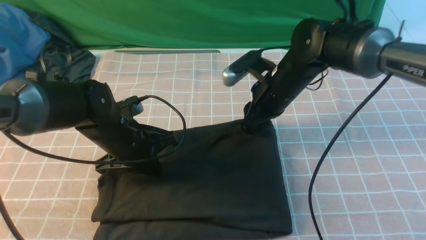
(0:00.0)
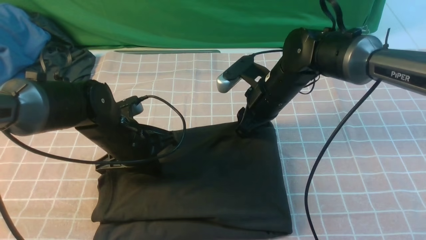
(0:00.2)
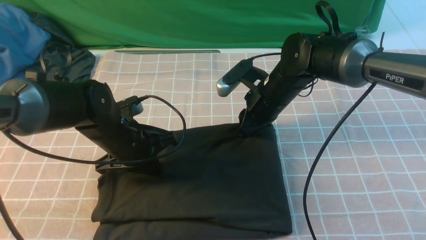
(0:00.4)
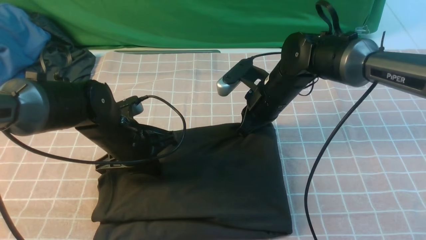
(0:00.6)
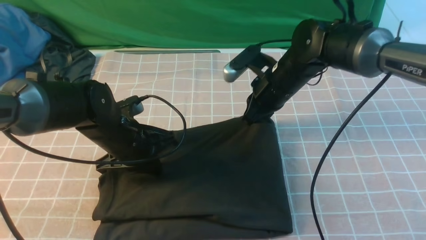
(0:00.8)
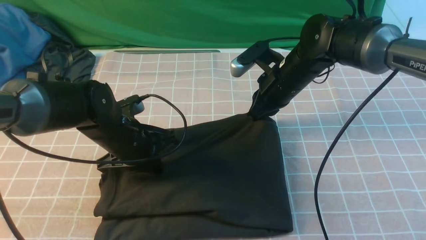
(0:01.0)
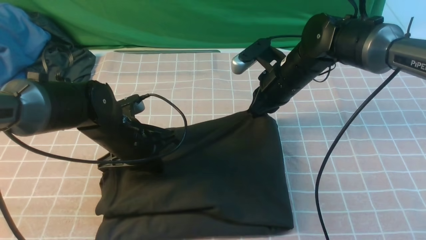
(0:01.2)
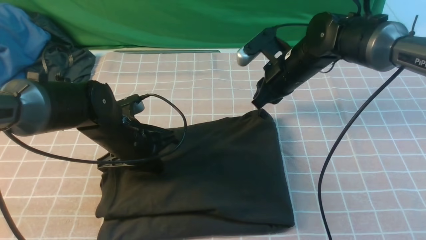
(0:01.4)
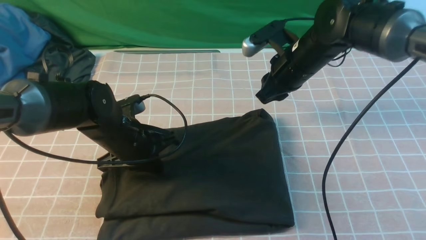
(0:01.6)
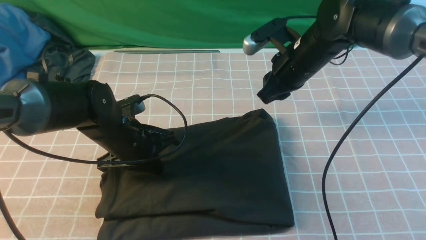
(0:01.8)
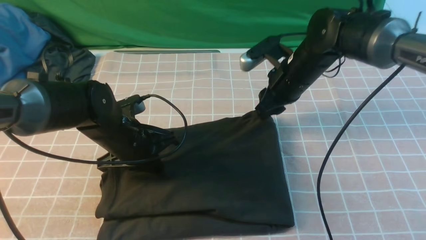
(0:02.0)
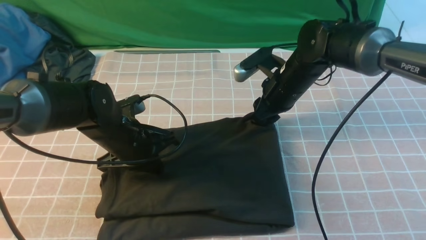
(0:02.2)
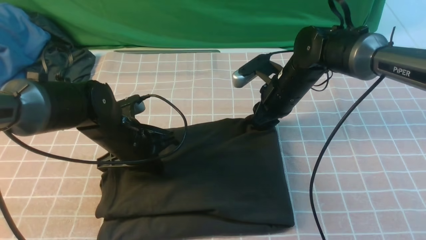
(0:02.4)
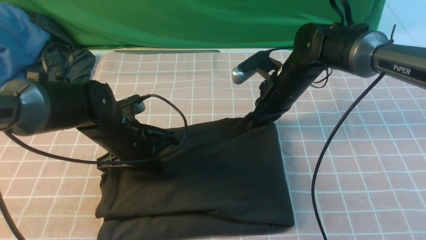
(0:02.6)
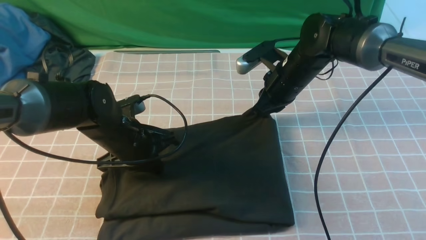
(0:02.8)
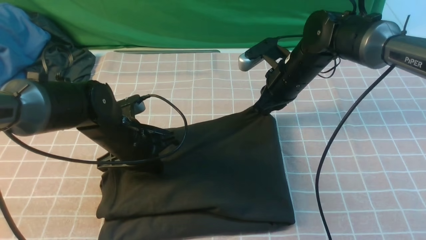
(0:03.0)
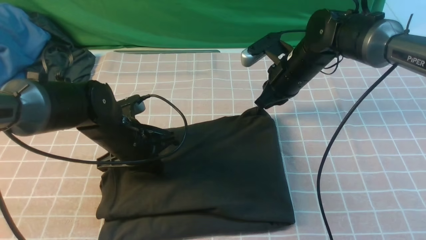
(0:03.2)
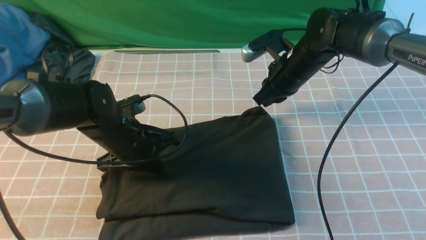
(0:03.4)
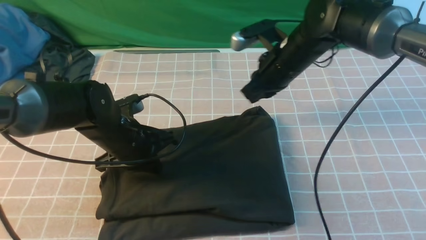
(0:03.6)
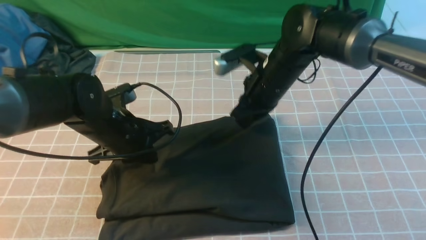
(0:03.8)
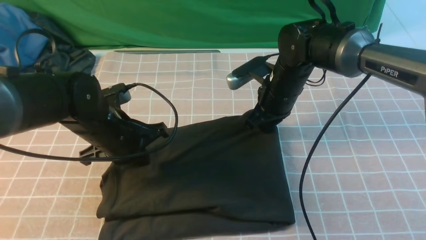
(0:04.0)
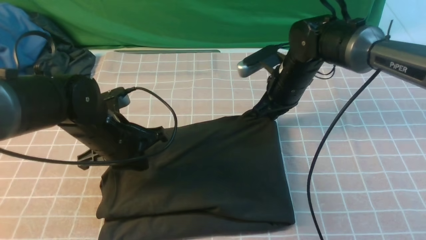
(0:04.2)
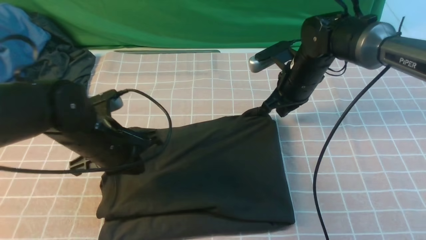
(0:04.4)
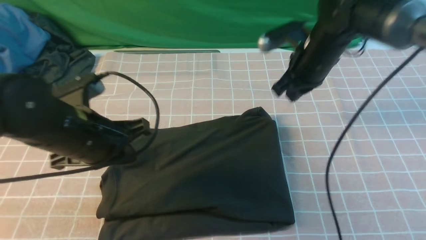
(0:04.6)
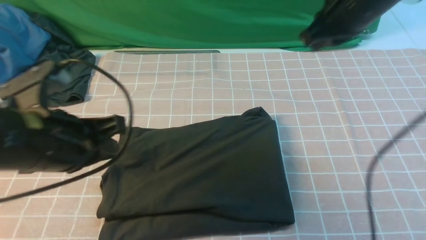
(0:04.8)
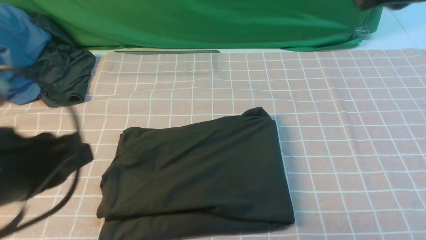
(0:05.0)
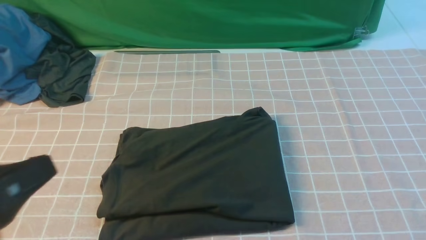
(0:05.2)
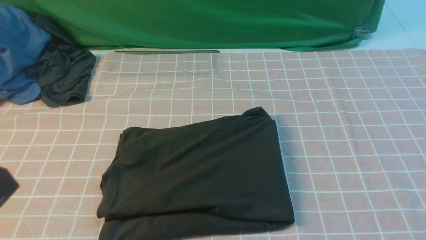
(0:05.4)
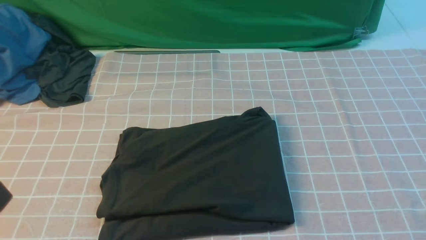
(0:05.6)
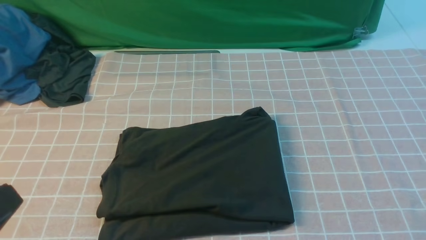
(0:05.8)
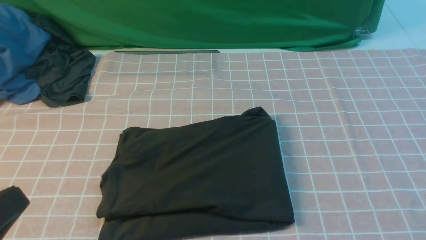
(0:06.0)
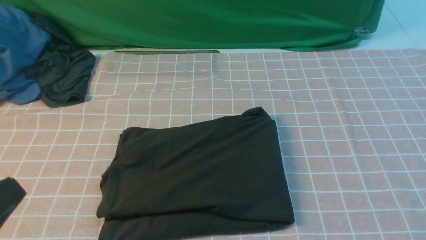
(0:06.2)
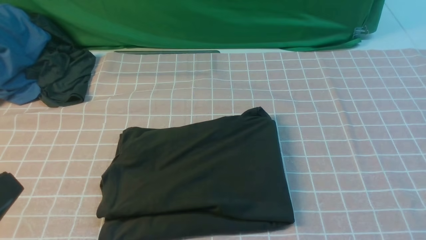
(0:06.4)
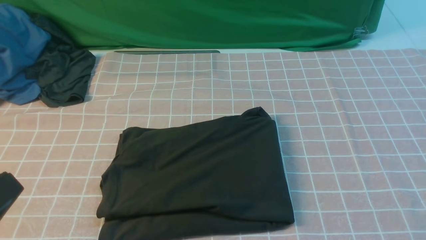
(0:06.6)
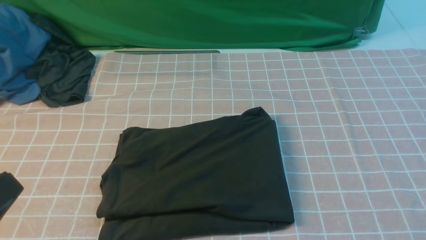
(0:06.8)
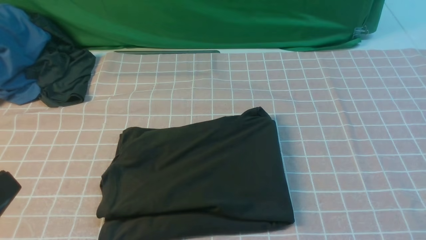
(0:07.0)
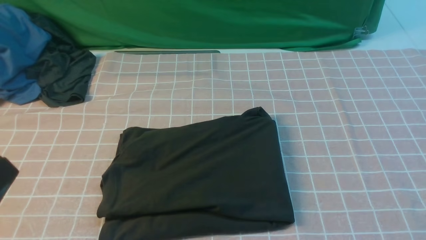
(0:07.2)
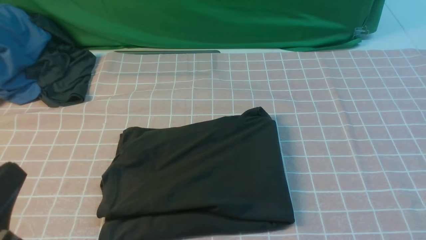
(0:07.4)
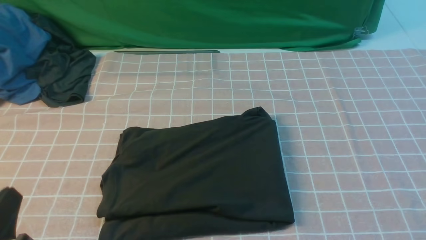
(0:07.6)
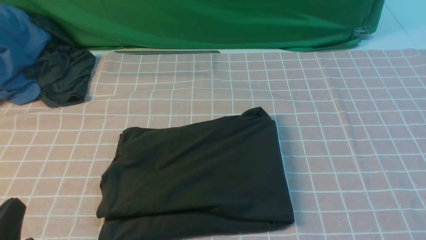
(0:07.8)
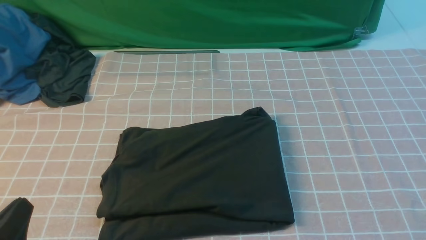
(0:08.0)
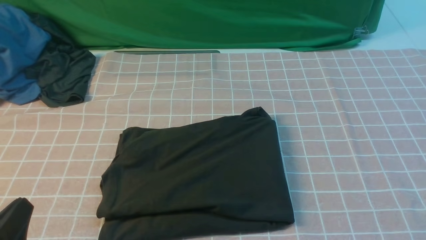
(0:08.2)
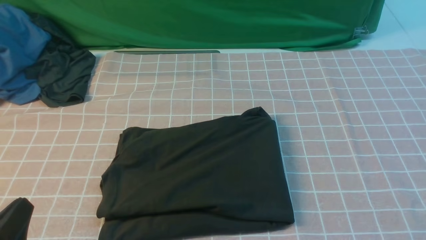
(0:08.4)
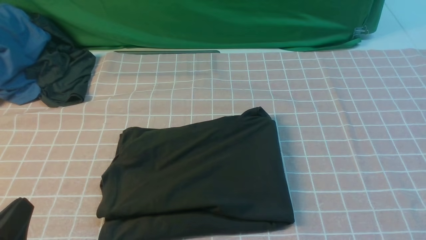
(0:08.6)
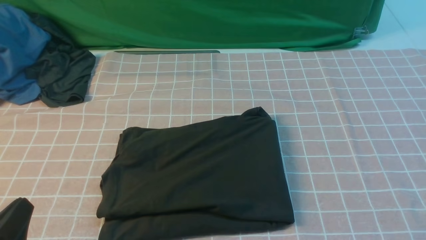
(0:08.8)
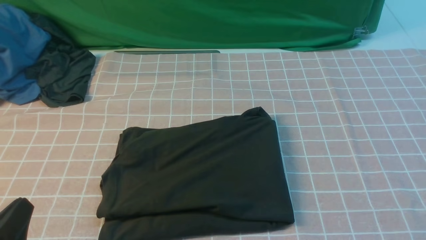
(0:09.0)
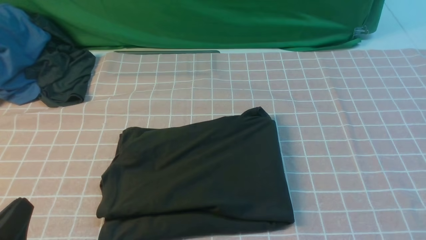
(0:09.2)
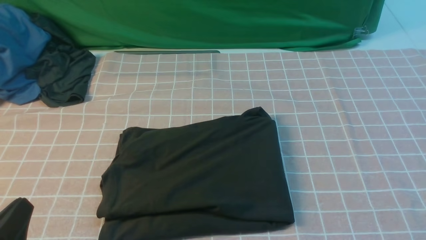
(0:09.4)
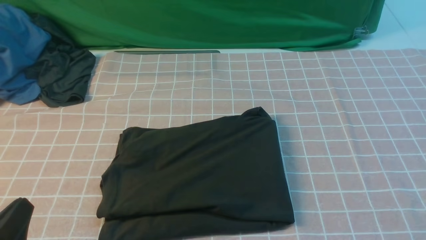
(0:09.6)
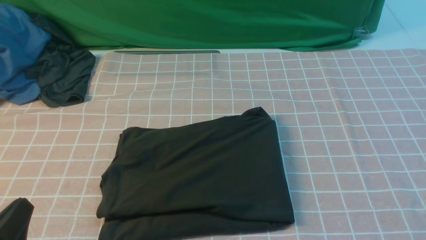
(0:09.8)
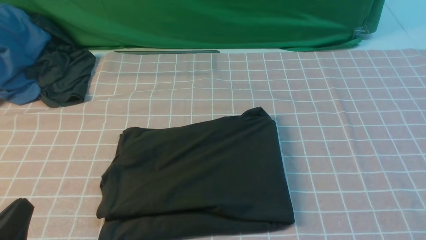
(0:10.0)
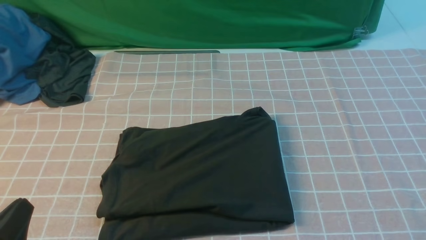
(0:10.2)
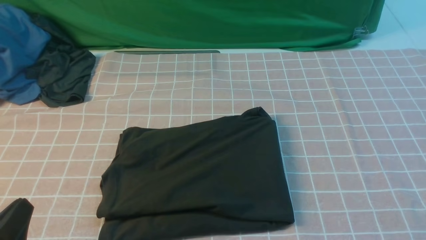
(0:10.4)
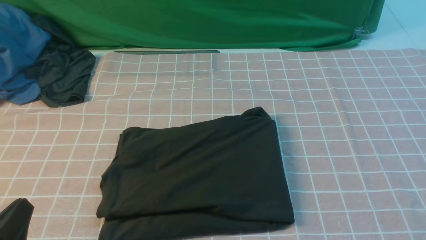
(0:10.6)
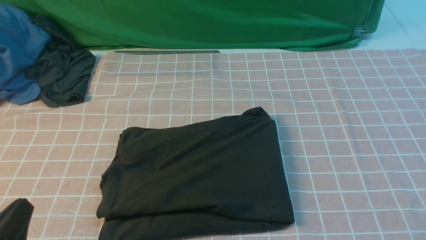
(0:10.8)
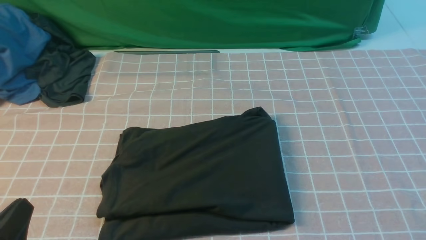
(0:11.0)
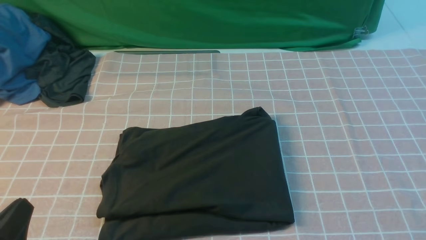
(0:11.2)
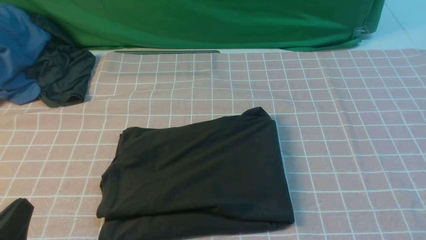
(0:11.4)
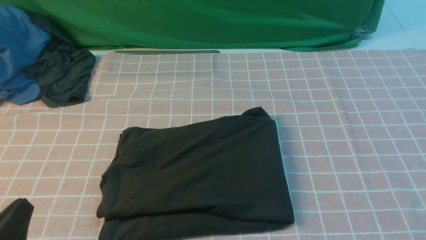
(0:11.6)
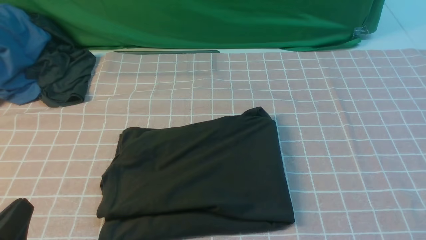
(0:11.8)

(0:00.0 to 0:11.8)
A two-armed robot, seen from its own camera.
0:00.0 - 0:03.0: The grippers stay close to where they were, moving slightly.
0:03.0 - 0:04.4: The left gripper is displaced upward by about 5 cm.
0:04.4 - 0:06.0: The left gripper shifts some 25 cm backward, while the right gripper moves backward and upward, roughly 40 cm.
0:06.0 - 0:07.4: The left gripper shifts by about 5 cm.
0:07.4 - 0:08.8: The left gripper goes about 5 cm downward.
0:10.4 - 0:11.8: Both grippers stay put.
